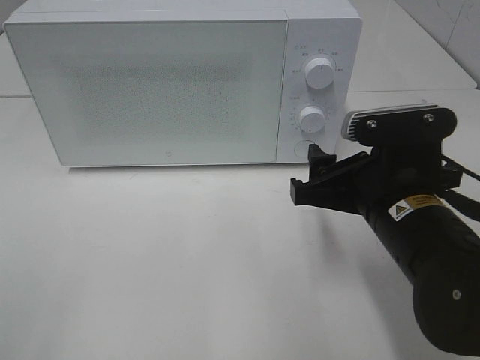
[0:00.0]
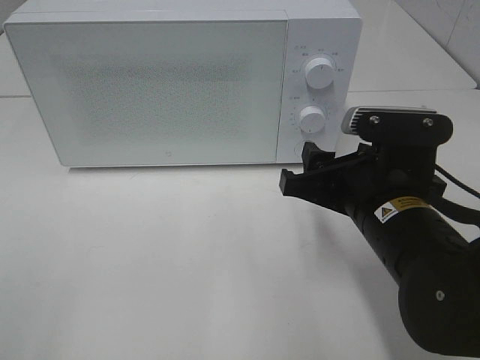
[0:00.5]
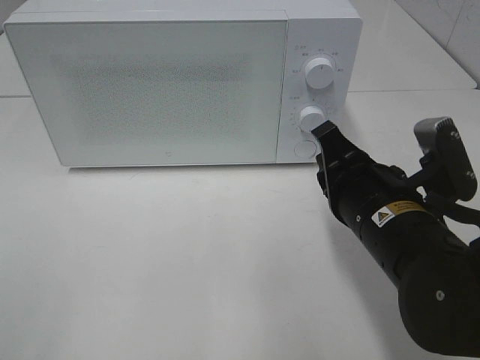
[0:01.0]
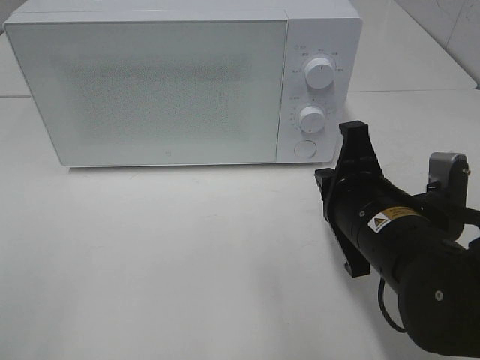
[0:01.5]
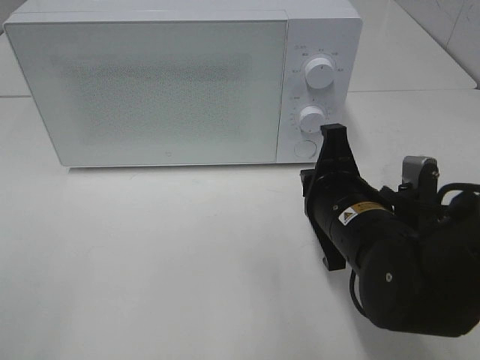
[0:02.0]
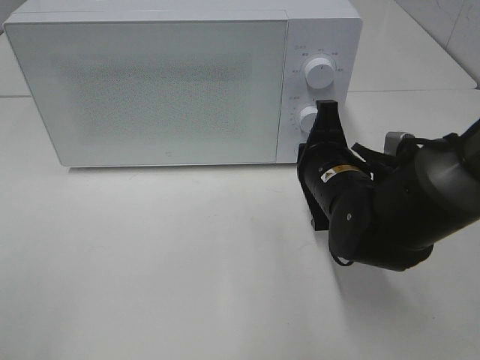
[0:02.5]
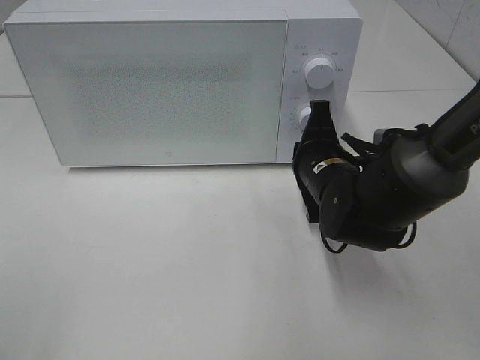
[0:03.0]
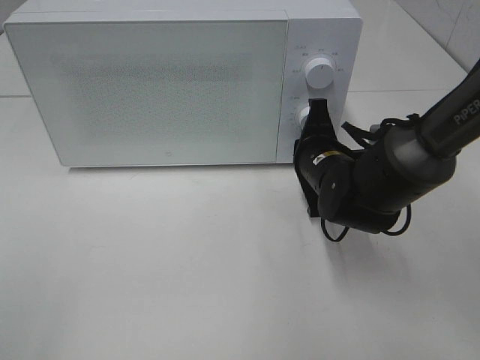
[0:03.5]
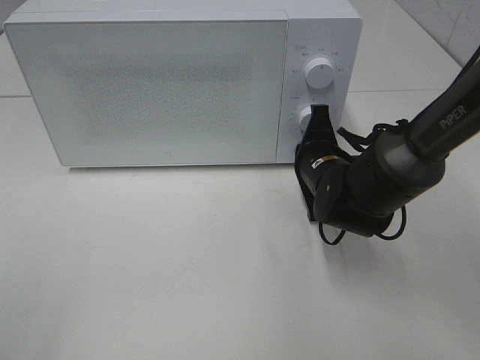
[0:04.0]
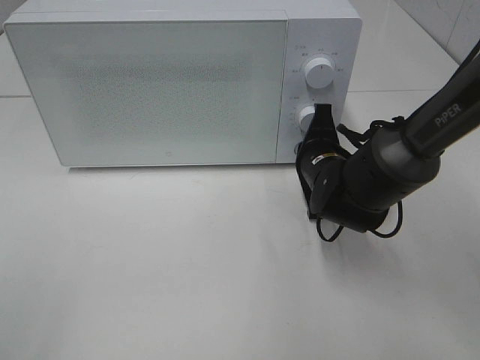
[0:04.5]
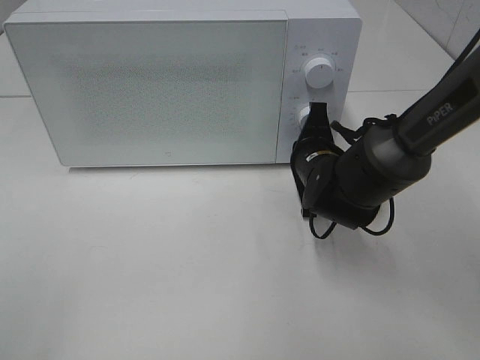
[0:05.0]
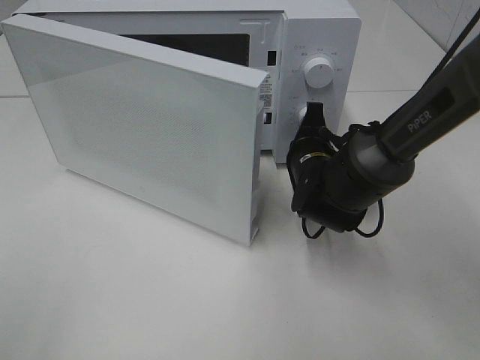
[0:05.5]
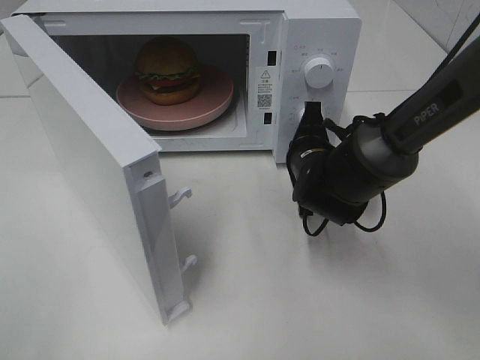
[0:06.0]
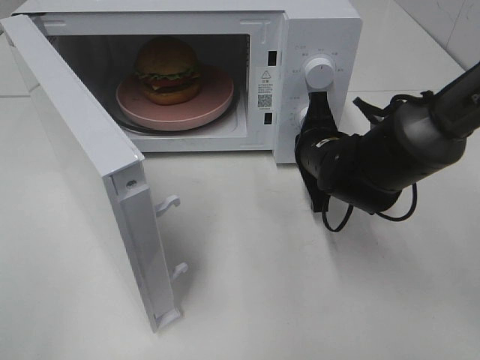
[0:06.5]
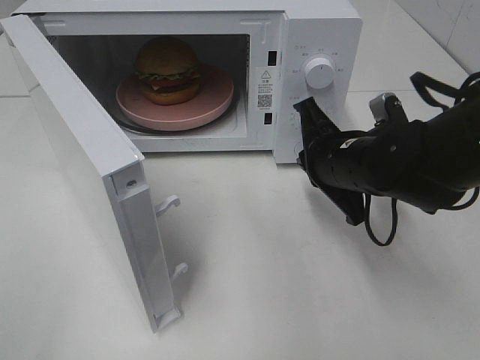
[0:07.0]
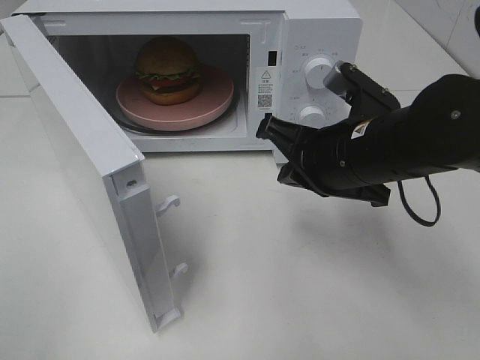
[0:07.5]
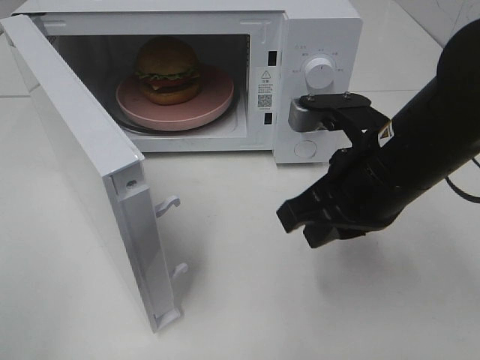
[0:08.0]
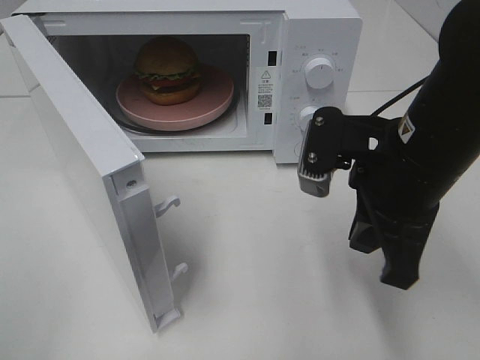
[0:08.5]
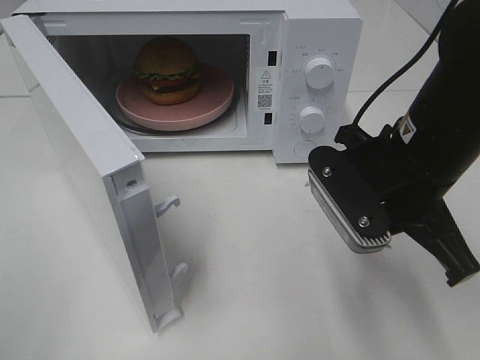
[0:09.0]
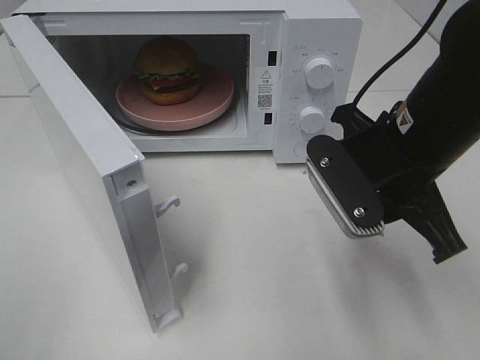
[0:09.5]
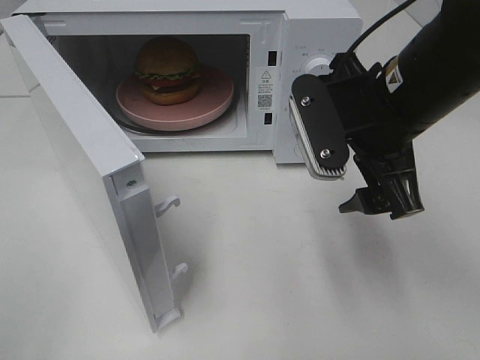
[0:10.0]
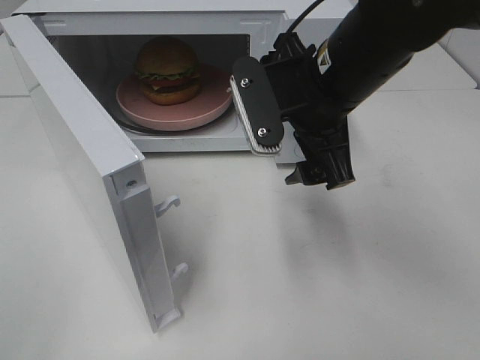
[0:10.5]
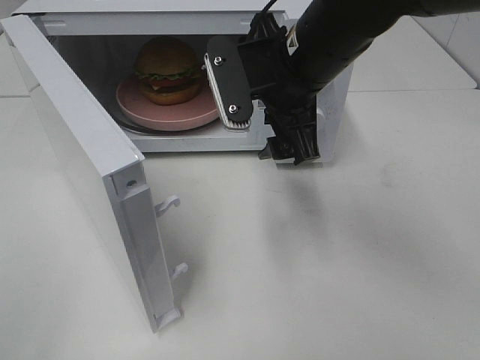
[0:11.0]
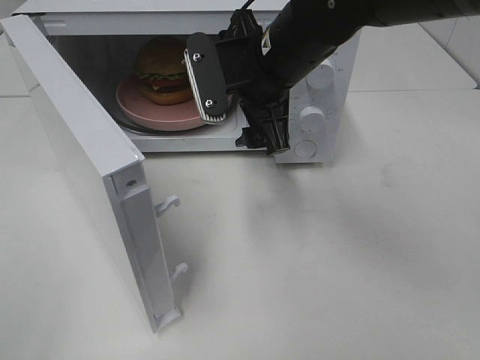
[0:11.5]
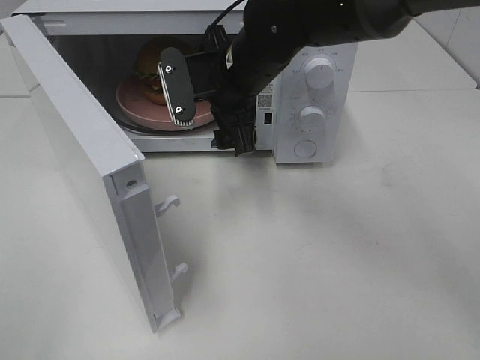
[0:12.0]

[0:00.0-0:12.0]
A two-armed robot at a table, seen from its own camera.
Task of the whole recording: Heat the burger.
Step, 0:00.0 to 0:06.5: Right hand: press the switch.
0:00.0 to 0:02.0: The right gripper closes.
0:02.0 to 0:04.0: The right gripper travels forward by roughly 10 cm.
0:06.0 to 0:08.0: The right gripper heads backward and upward, covering roughly 20 cm.
0:08.0 to 0:10.0: The right gripper ends up roughly 5 cm from where it was, and opens its fingers.
0:10.0 to 0:12.0: The right gripper travels forward and to the left by approximately 15 cm.

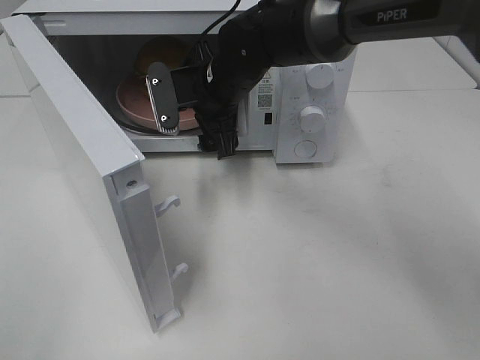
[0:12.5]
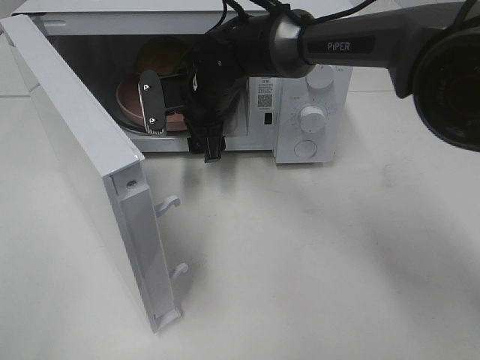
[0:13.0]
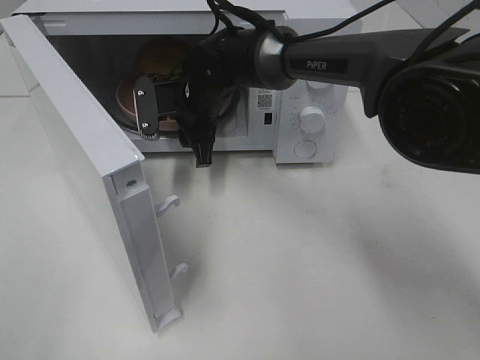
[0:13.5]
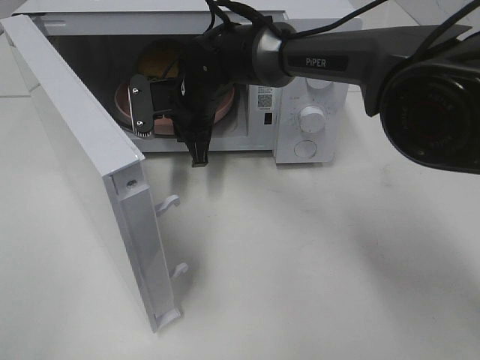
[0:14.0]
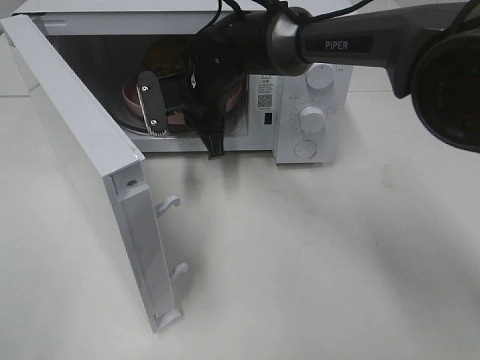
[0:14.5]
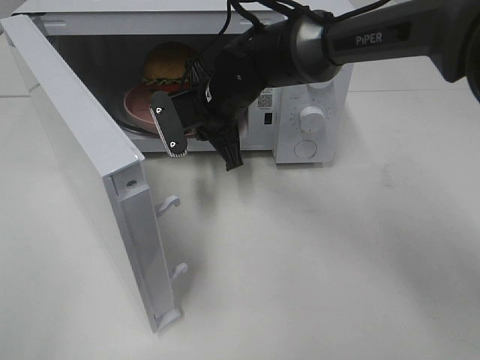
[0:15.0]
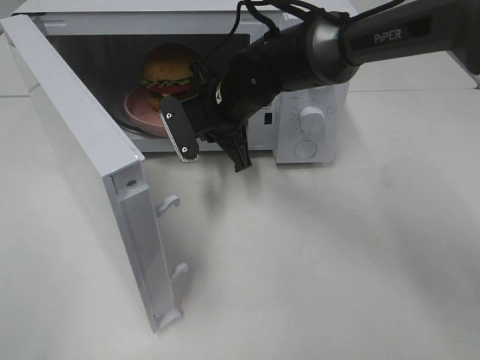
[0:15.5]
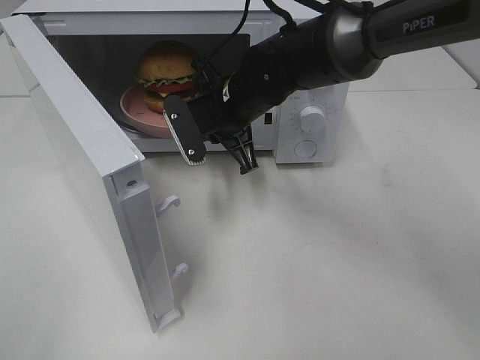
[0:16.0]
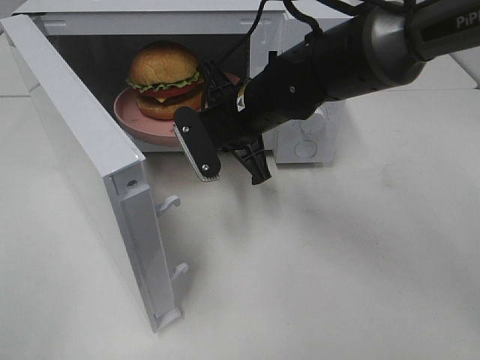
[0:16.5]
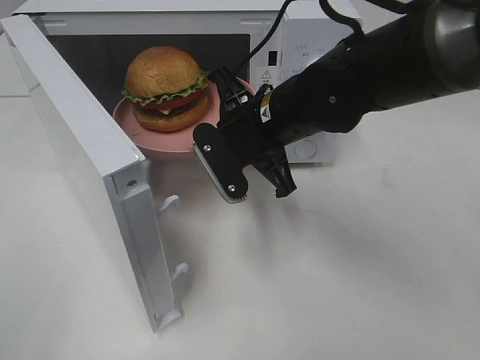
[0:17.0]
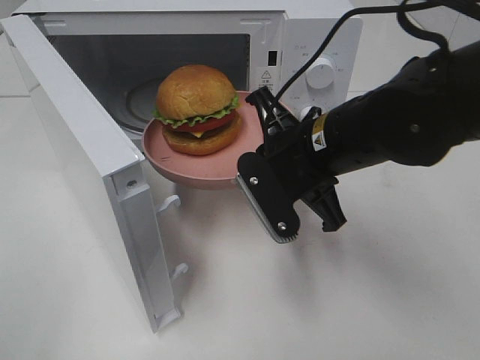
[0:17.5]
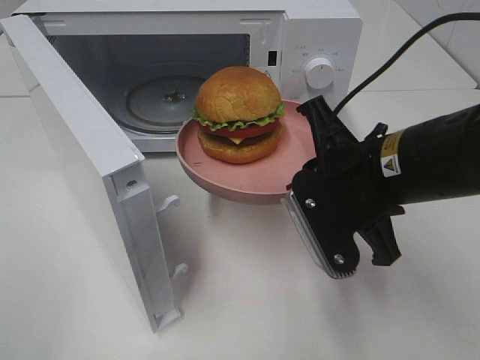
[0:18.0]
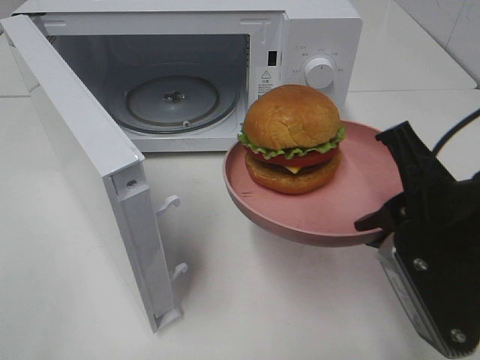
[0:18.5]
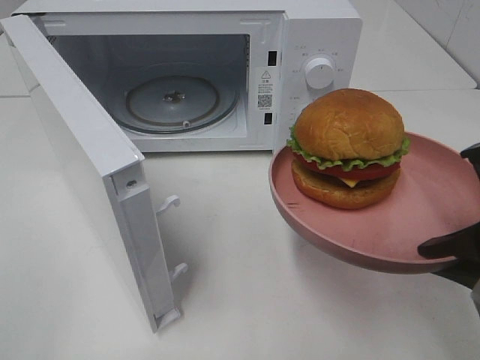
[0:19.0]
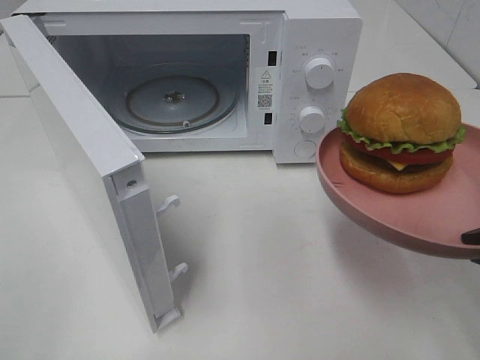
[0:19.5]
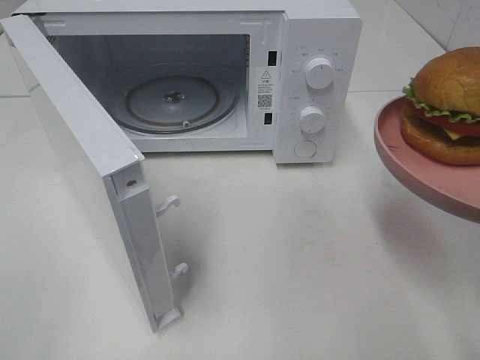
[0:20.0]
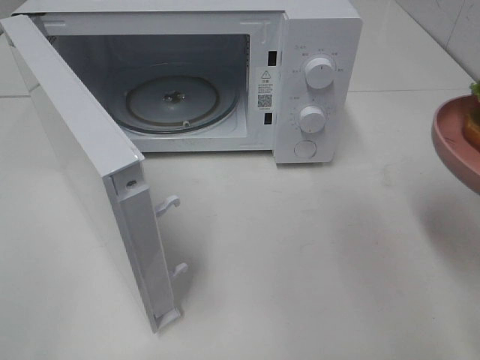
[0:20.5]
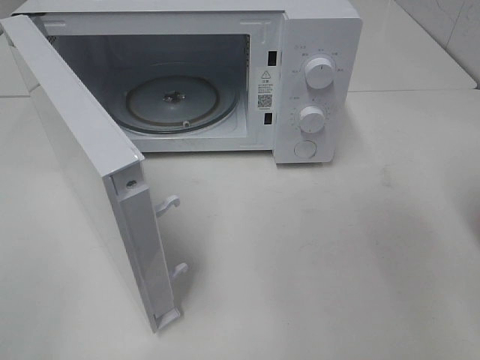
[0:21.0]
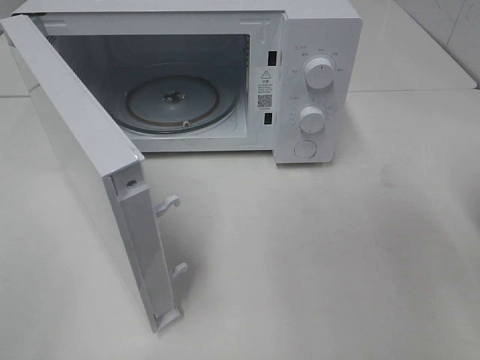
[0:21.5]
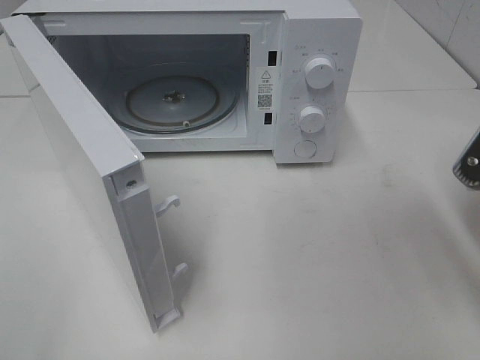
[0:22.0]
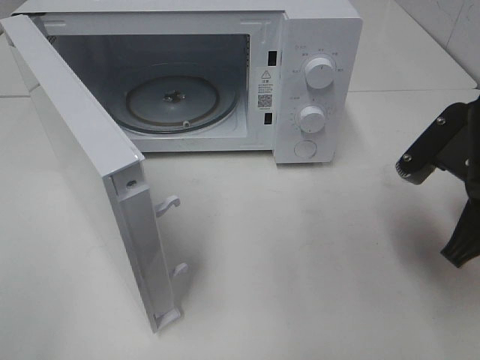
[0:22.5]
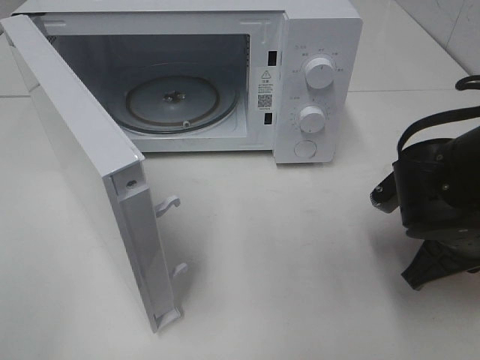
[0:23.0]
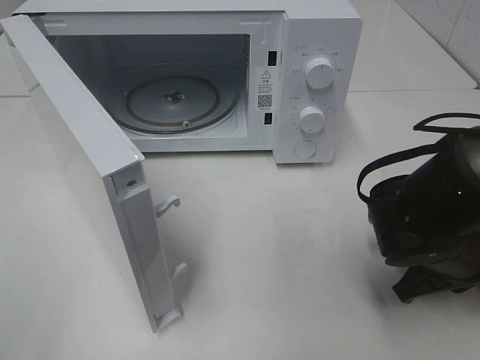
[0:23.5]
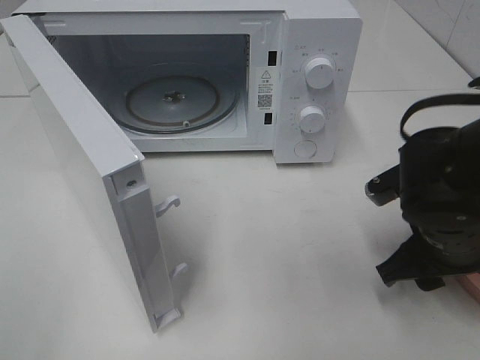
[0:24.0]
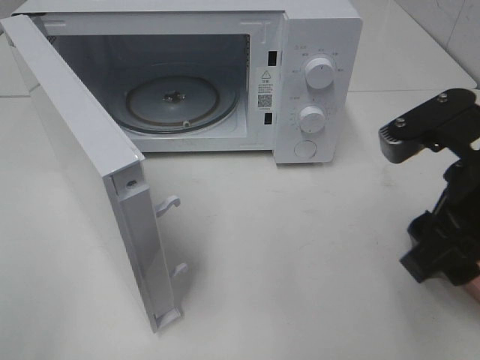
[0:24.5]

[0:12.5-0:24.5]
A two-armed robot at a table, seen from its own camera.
Task of the whole recording: Heat the burger.
Step, 0:14.0 to 0:23.5: Right hand: place the plate on the table.
0:12.5 to 0:14.5: The right gripper closes.
0:14.5 to 0:16.5: The right gripper heads backward and to the right, covering approximately 10 cm.
0:16.5 to 0:18.5: The right gripper moves backward and to the right, roughly 25 cm.
0:18.5 to 0:20.5: The right gripper is displaced to the right by some 10 cm.
0:20.5 to 0:22.5: The right gripper heads forward, downward and to the left, covering some 10 cm.
0:22.5 to 0:24.5: The right gripper travels upward by about 5 cm, and opens up.

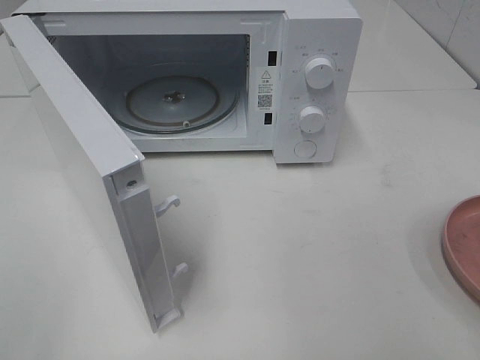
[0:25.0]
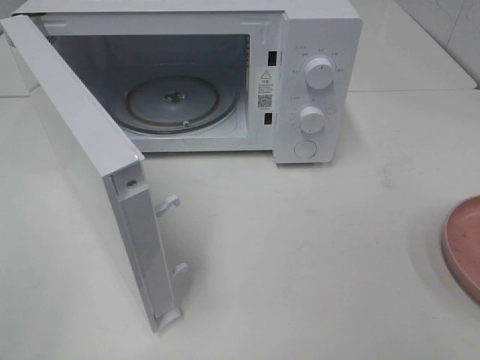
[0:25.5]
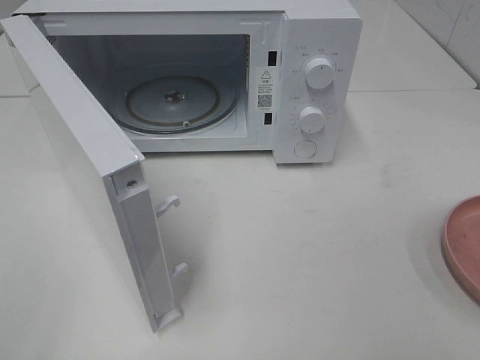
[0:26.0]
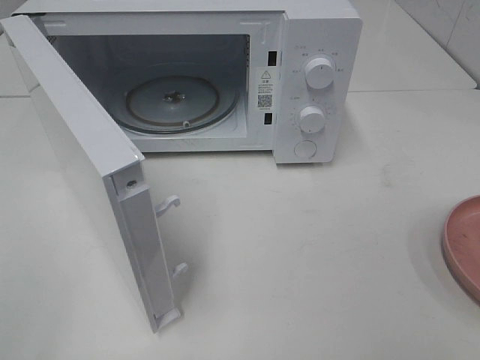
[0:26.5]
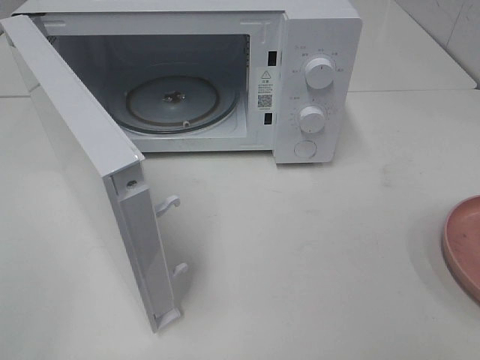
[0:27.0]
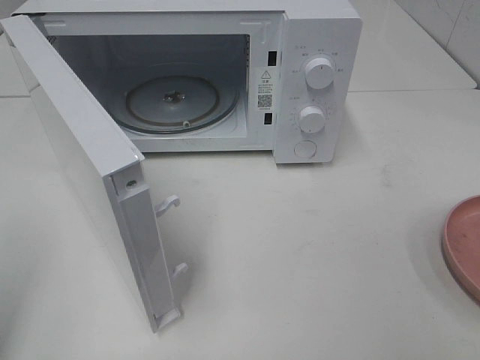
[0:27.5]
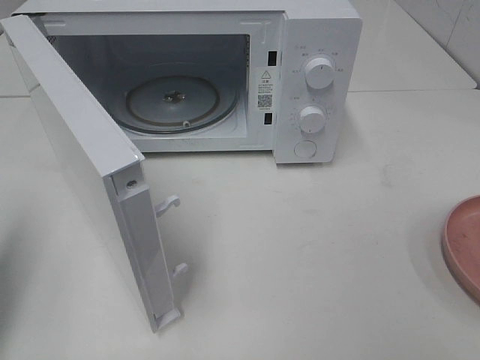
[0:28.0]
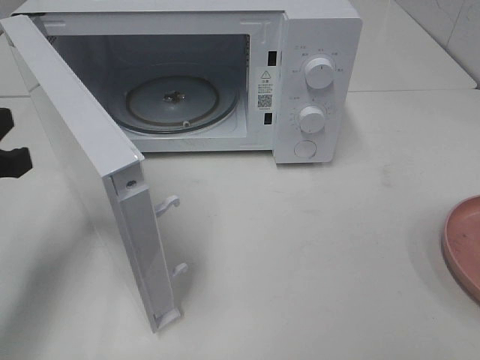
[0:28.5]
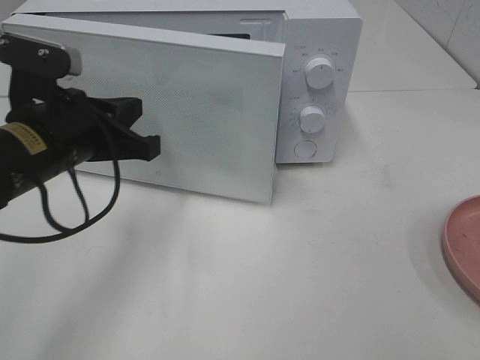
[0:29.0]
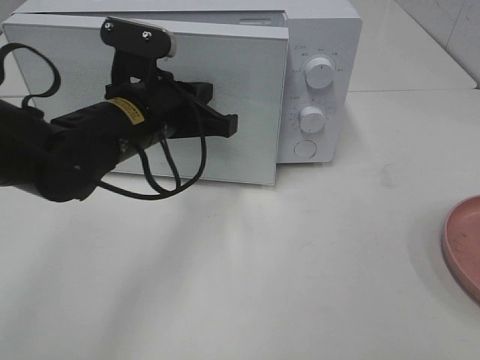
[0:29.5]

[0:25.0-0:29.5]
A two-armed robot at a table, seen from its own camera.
Task of the whole recording: Heat the burger.
0:27.0 to 0:29.5: The left gripper travels forward and to the right by about 40 cm, and closes up.
